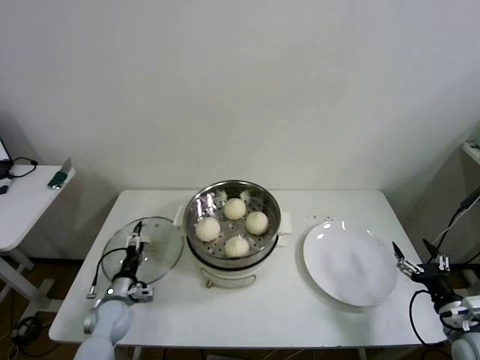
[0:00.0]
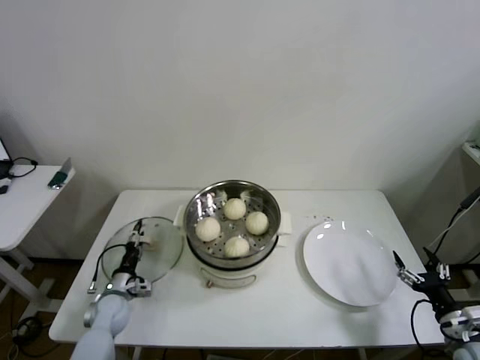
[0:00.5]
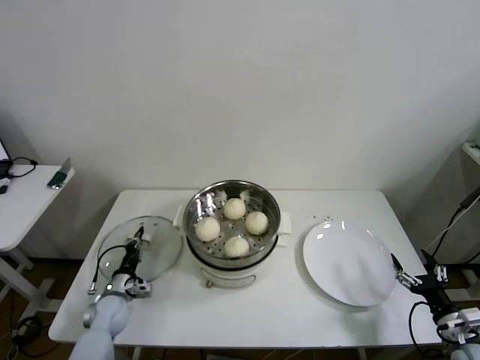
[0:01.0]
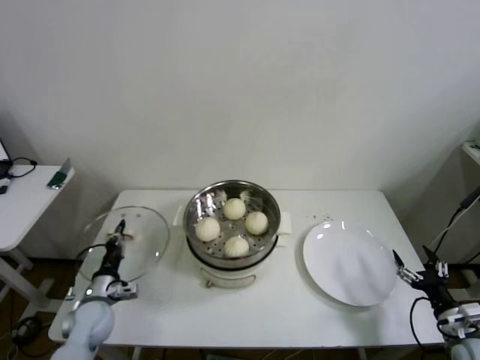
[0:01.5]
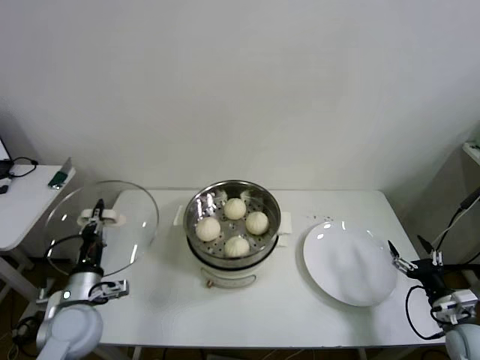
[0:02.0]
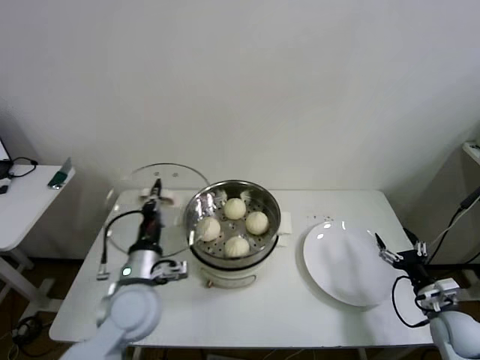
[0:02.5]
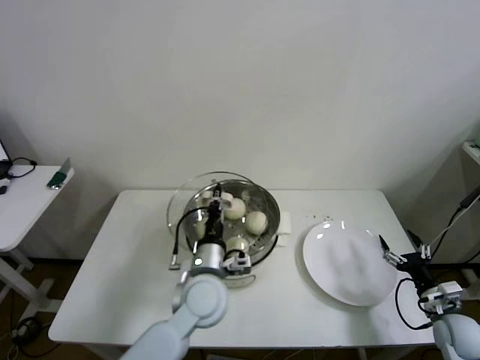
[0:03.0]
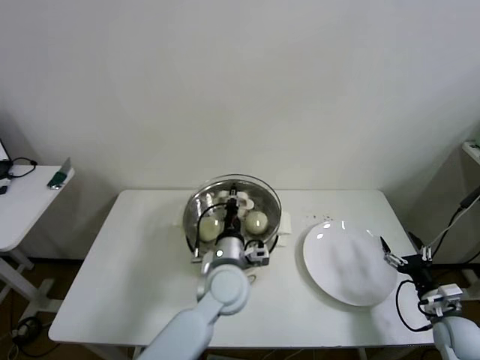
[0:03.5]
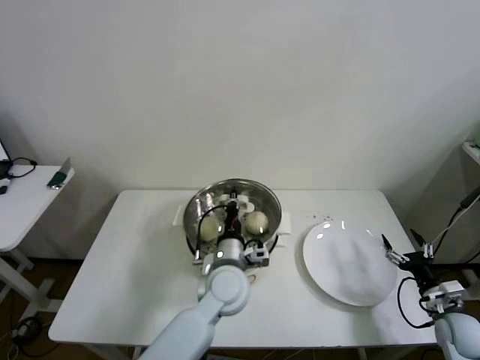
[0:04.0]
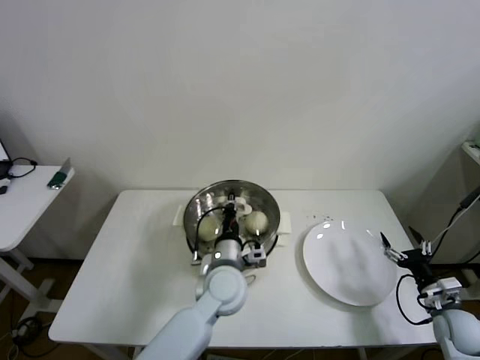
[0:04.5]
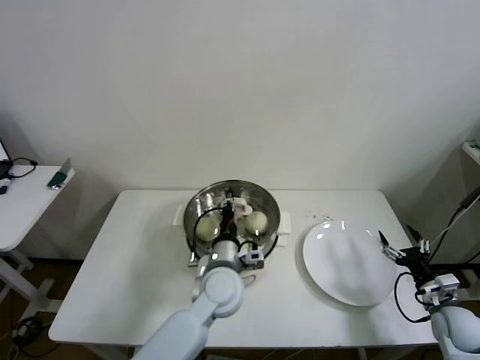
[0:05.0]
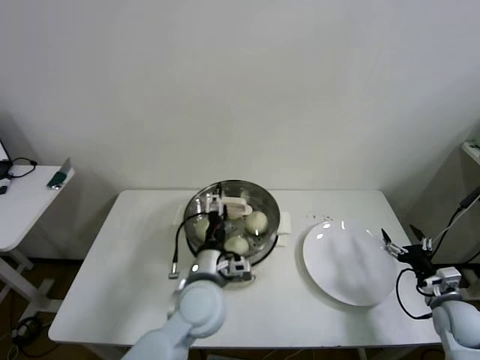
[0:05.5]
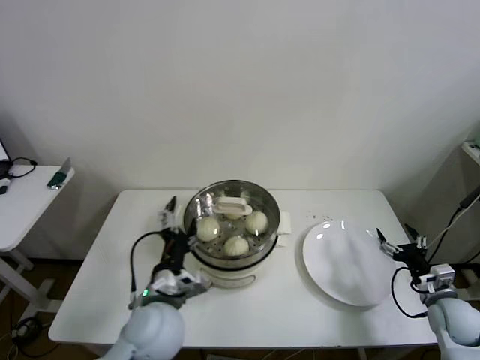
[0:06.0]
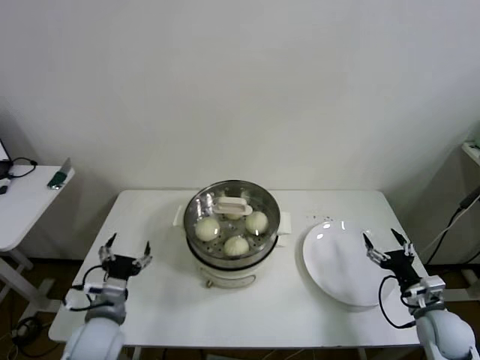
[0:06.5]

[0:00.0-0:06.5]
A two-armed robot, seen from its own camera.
Step, 1.5 to 4.5 s: Place the pot lid on the steamer with left gripper.
0.0 to 2.0 s: The left gripper goes roughly 15 cm upward and backward, and closes up.
2.0 to 4.5 s: The left gripper moves to the right, some 30 cm.
4.5 to 6.5 s: The right gripper shifts by approximately 5 cm, while the left gripper moves to the left and backward, roughly 25 cm, and opens its fingers.

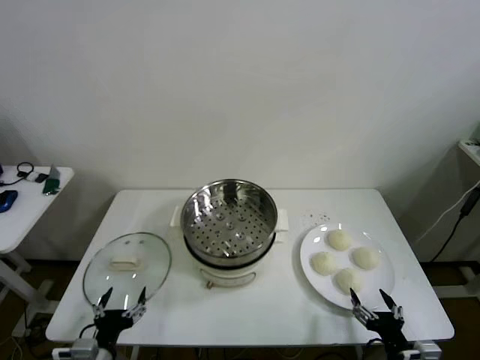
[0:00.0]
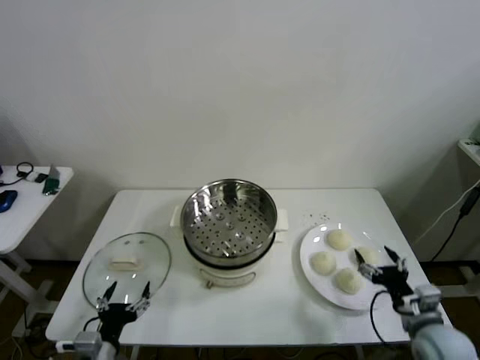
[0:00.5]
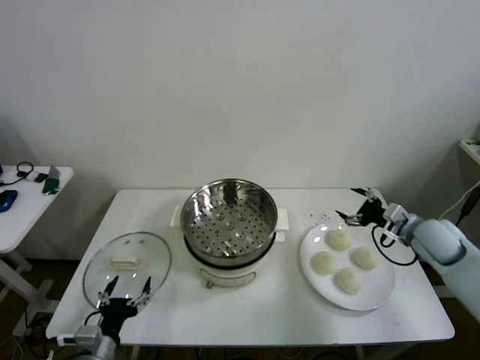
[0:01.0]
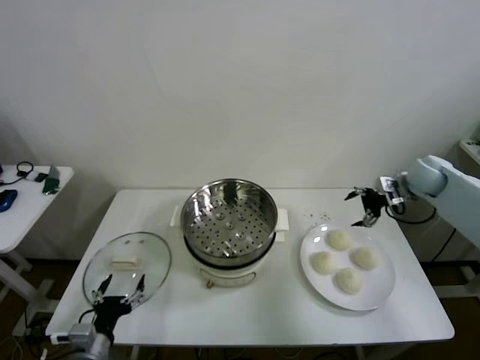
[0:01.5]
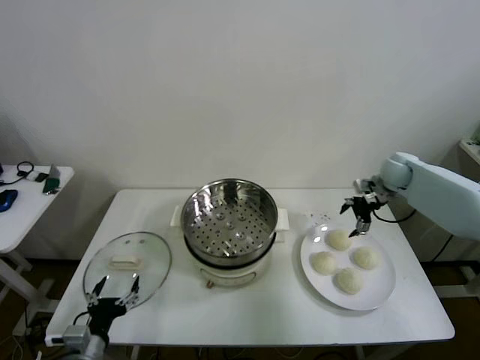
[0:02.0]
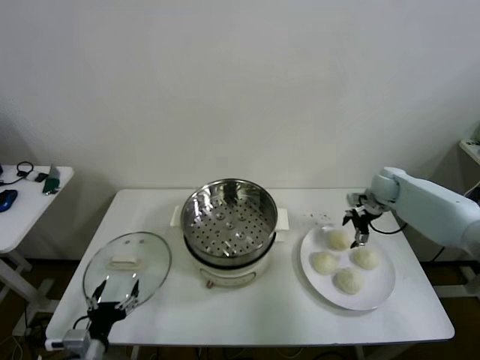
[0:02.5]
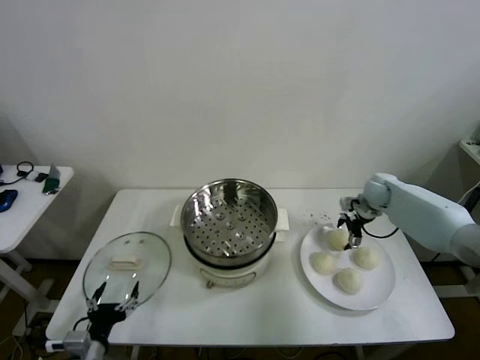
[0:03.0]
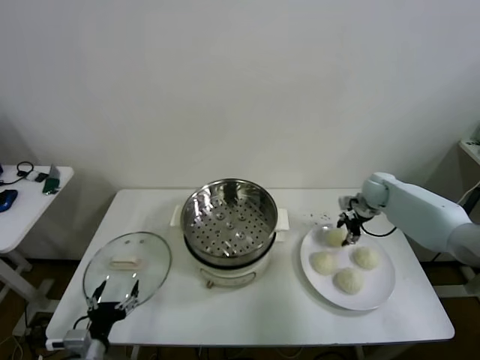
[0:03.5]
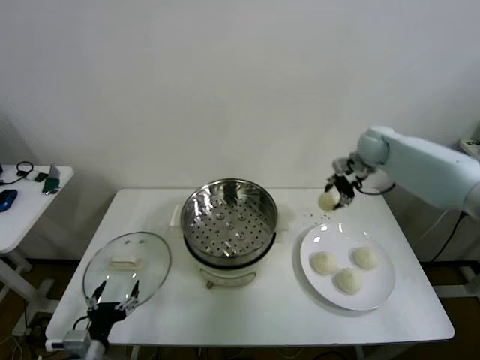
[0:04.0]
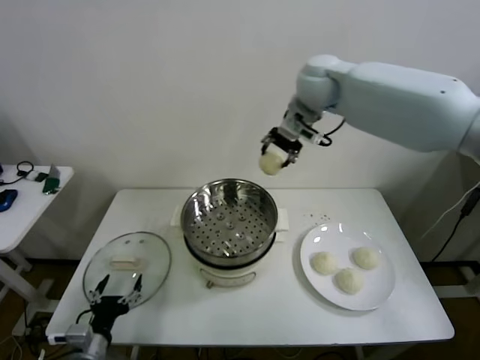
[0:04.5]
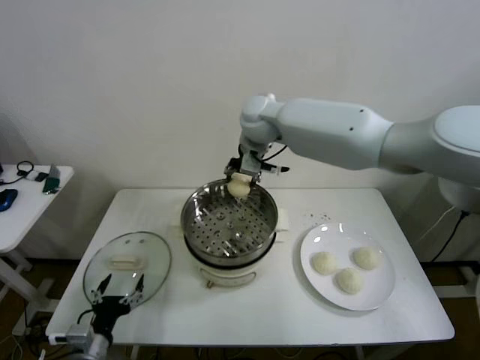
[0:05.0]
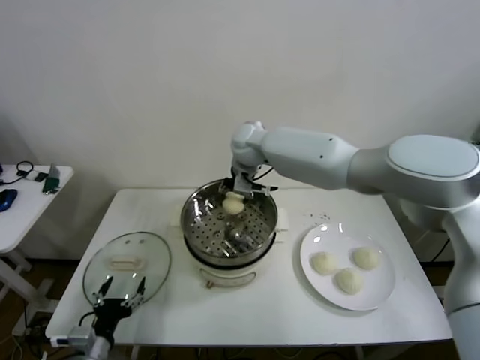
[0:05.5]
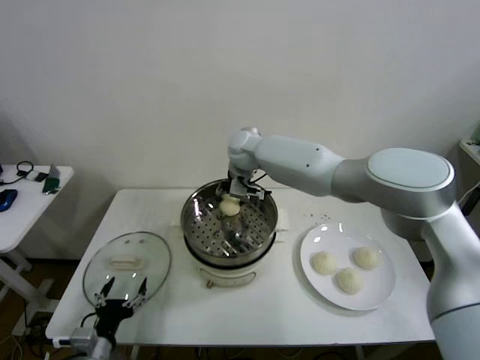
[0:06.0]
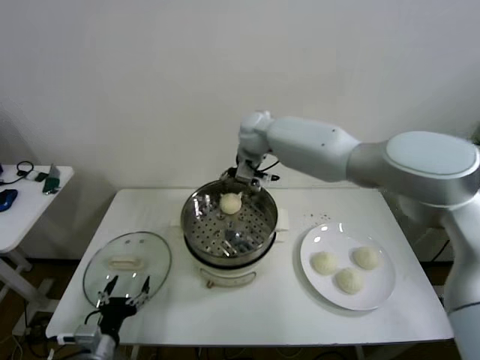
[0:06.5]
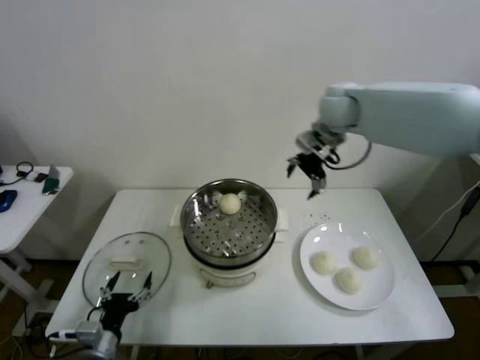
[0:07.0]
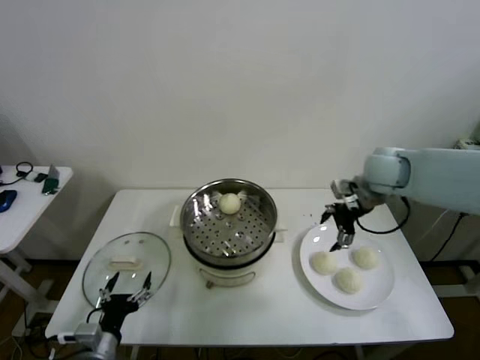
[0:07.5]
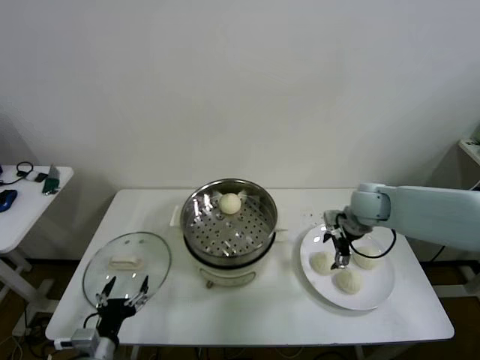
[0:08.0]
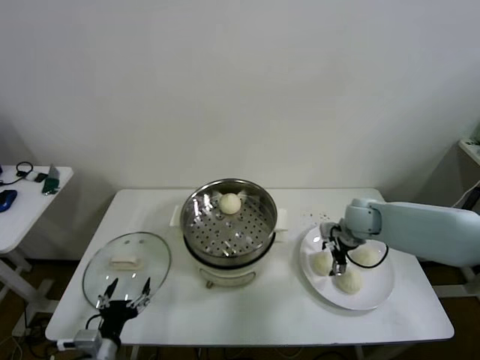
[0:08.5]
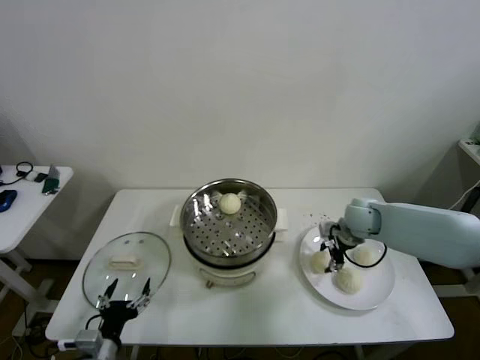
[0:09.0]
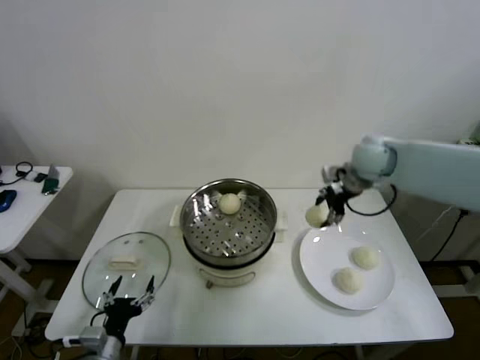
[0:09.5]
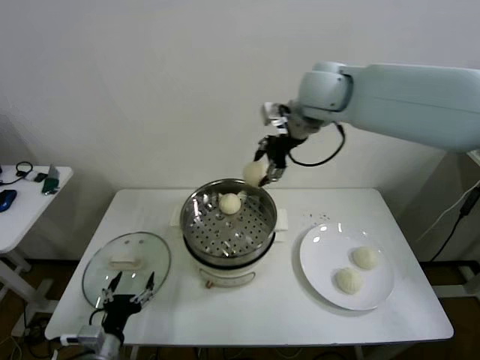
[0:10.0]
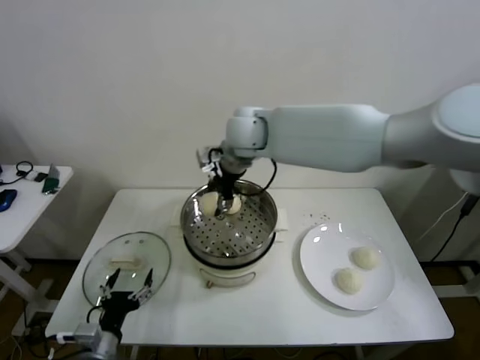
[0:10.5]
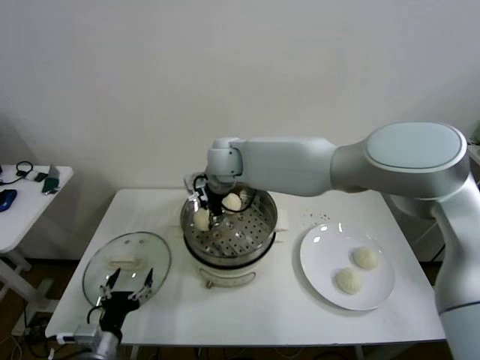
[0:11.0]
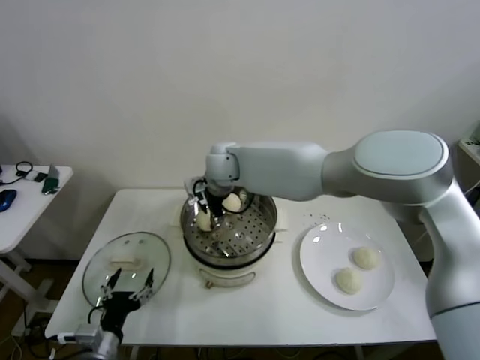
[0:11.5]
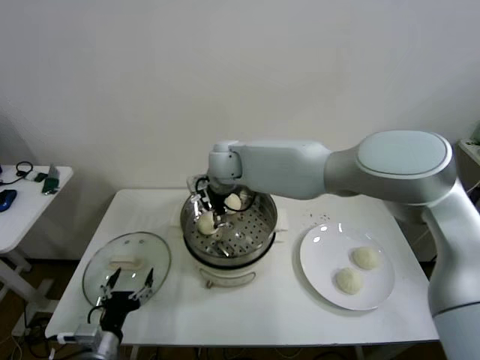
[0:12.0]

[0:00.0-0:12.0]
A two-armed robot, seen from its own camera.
Step, 0.0 to 3.0 s: Grasp the baozi in the plate with right gripper.
Step, 3.5 to 6.0 s: Place the baozi on the steamer with right gripper.
Step, 6.5 to 8.5 s: Grasp the baozi in the plate with right gripper.
Step, 9.0 to 11.5 s: Place the baozi on the steamer with right gripper.
2.0 to 4.0 s: The right gripper shifts about 15 cm upward and to the left, and closes up.
4.0 to 6.0 s: The right gripper goes about 30 cm to the left, and opens.
6.0 to 8.0 s: The right gripper is displaced to the right by approximately 30 cm, and opens.
8.0 to 10.0 s: The right gripper shifts approximately 35 cm upward and to the left, and closes.
10.0 to 12.0 s: The right gripper moves downward and to the left, about 20 cm, and opens its fingers.

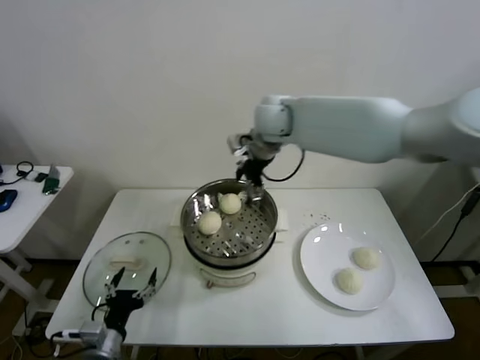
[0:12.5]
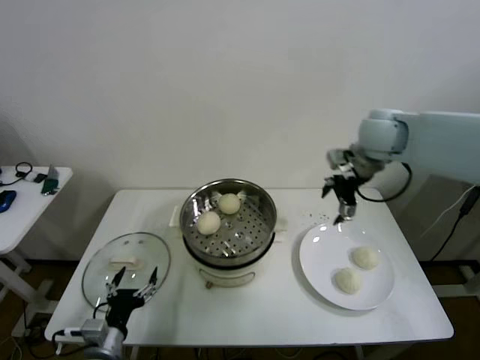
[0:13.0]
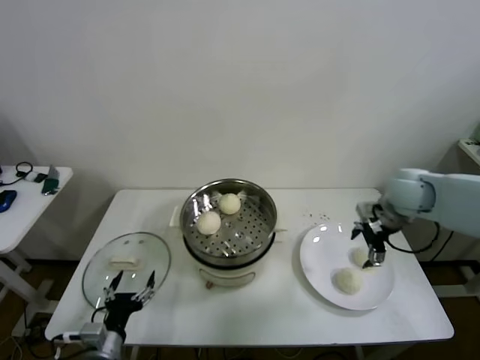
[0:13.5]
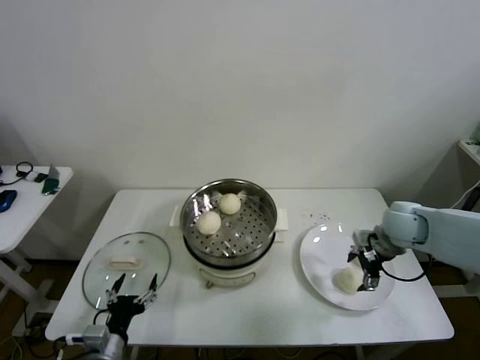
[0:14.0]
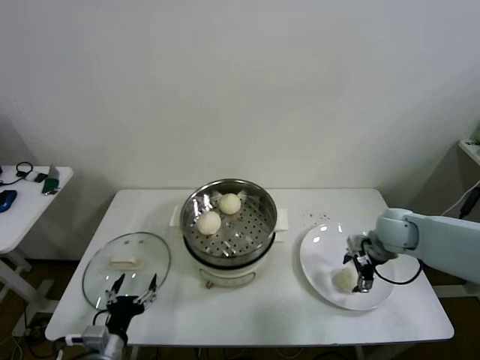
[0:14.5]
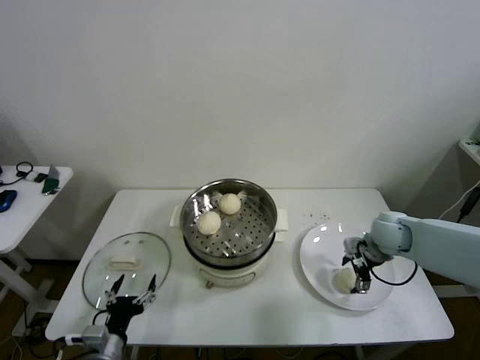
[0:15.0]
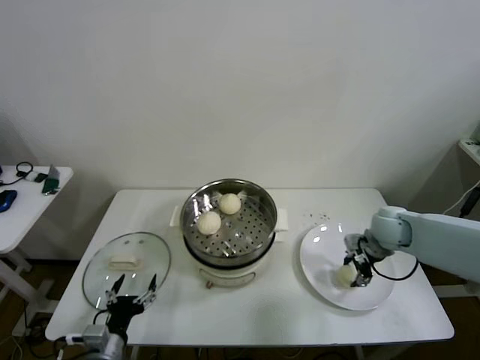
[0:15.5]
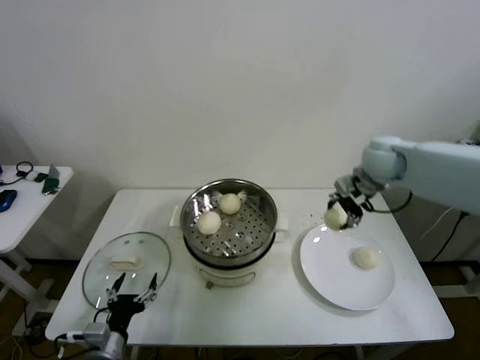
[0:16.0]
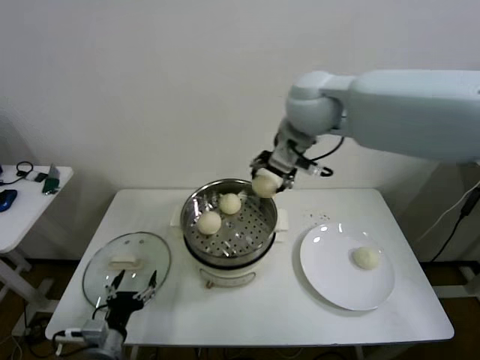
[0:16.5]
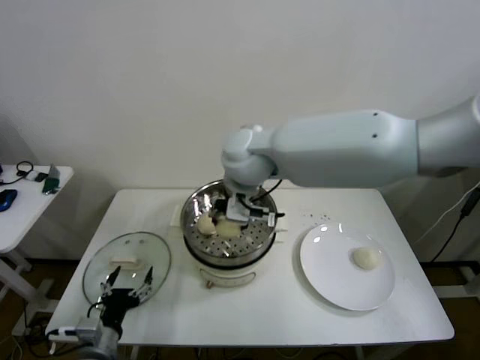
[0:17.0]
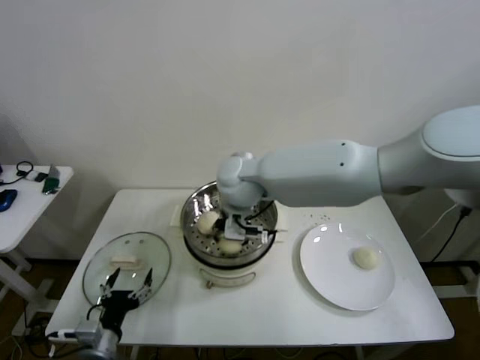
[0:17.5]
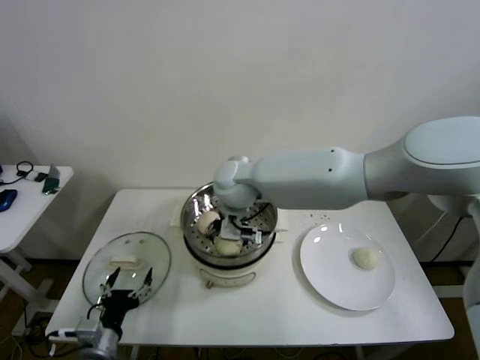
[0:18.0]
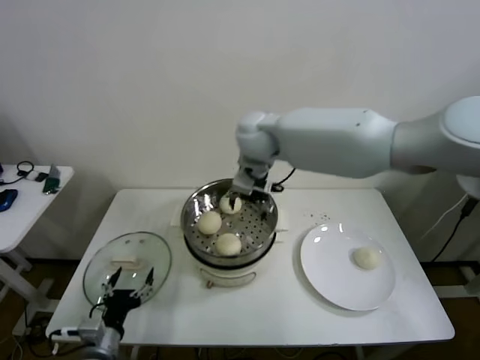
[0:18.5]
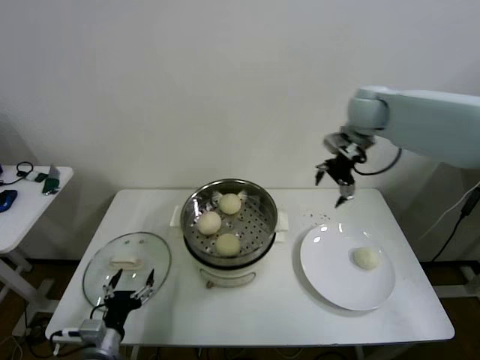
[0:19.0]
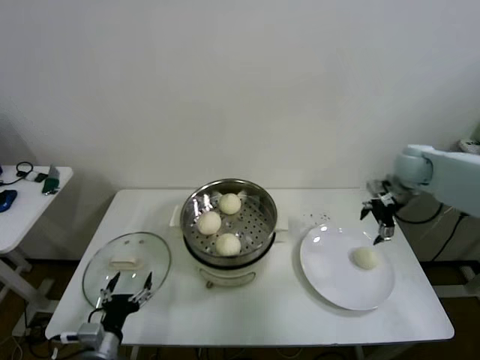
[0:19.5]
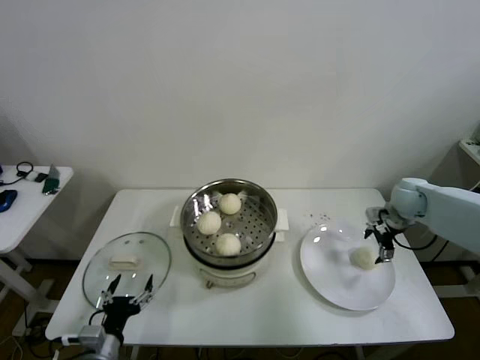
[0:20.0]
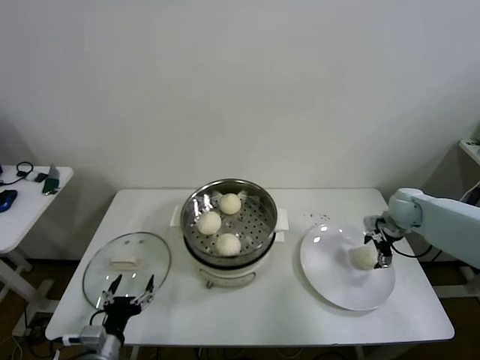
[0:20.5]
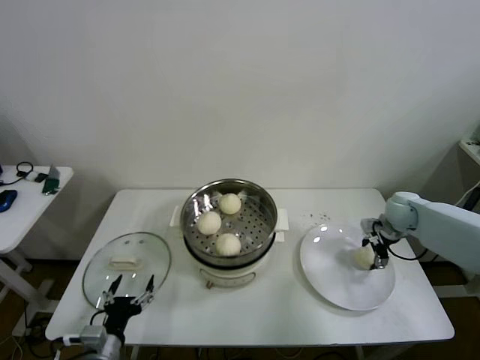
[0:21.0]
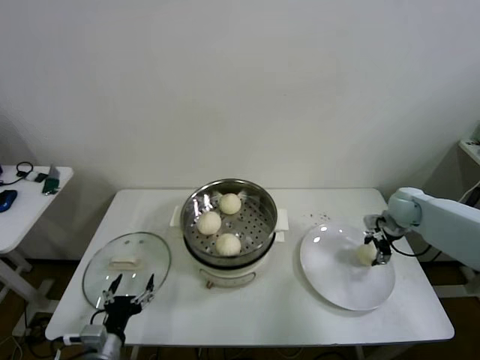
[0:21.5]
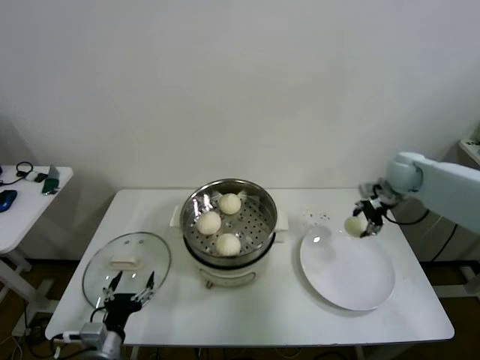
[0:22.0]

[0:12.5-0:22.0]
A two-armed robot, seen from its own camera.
Step, 12.5 to 15.0 s: Grasp the baozi in the plate with right gripper.
Step, 16.0 to 17.5 s: Place the baozi on the steamer with right gripper.
Step, 18.0 to 20.5 s: Grasp the baozi in the plate with right gripper.
12.5 to 14.5 s: The right gripper travels downward, to the right and backward by some 35 cm.
14.5 to 16.5 s: The right gripper goes approximately 40 cm upward and to the left, and closes.
16.5 to 18.0 s: The right gripper travels downward and to the left by roughly 20 cm, and opens its fingers.
18.0 to 20.0 s: The right gripper shifts some 40 cm to the right.
20.0 to 22.0 s: The right gripper heads upward, covering about 5 cm, and closes its fingers.
